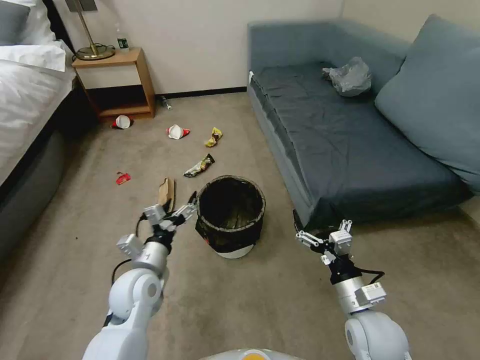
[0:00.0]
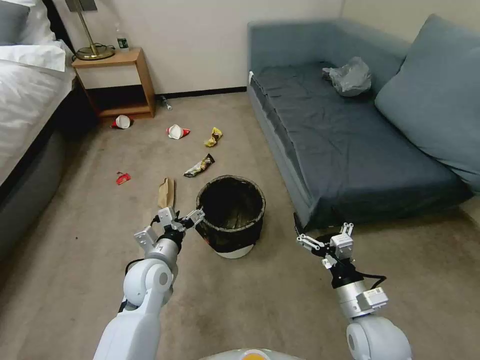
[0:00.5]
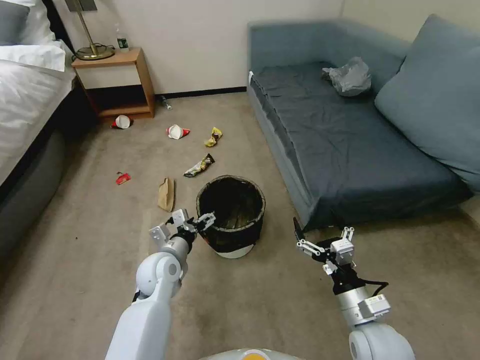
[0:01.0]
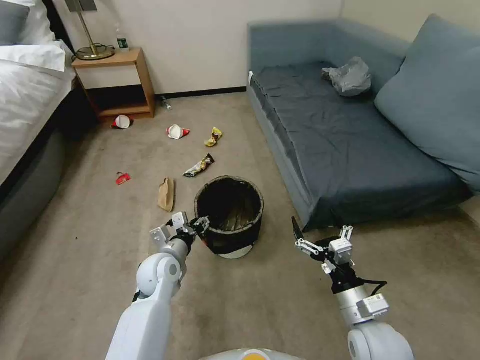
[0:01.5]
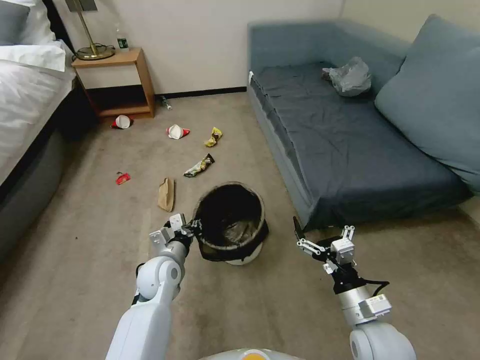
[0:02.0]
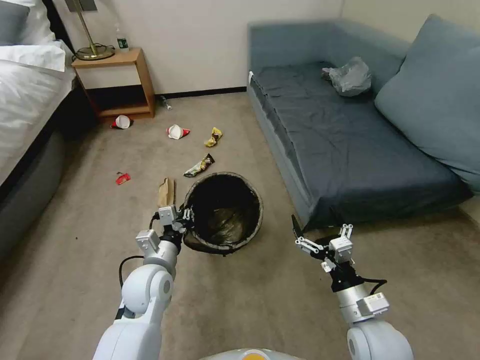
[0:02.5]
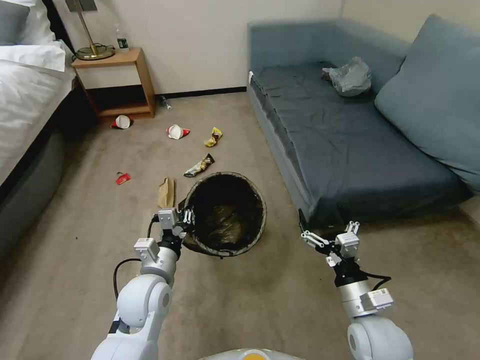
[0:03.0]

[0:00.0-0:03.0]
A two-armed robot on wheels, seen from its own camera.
Task of the whole recording: Pick up the trash can from the floor.
0:00.0 to 0:01.5: The left gripper heads forward, covering approximately 5 cm, and closes up.
0:01.5 to 0:03.0: The left gripper travels backward by about 5 cm, and closes its fingers.

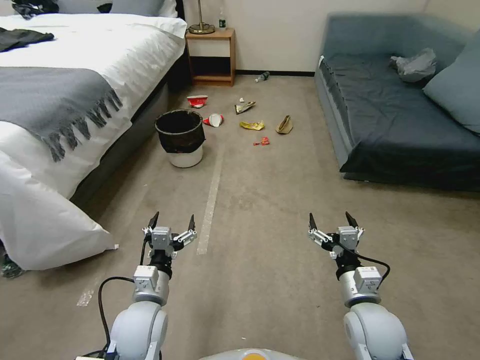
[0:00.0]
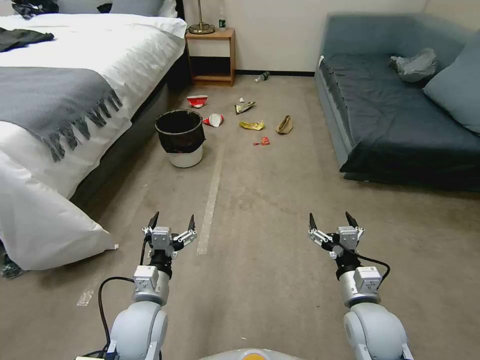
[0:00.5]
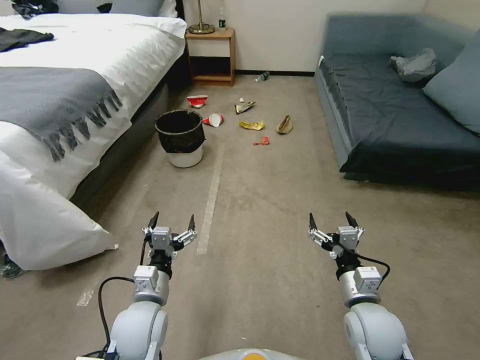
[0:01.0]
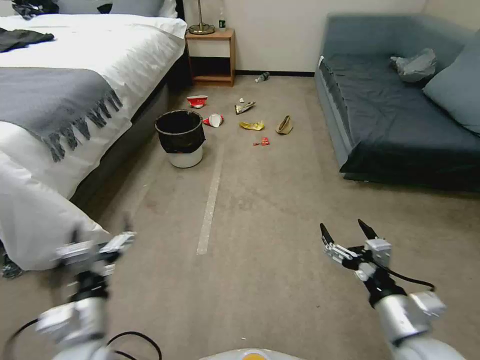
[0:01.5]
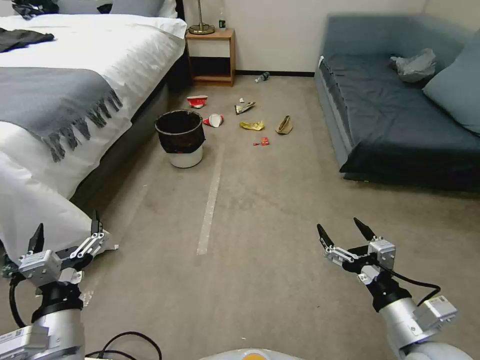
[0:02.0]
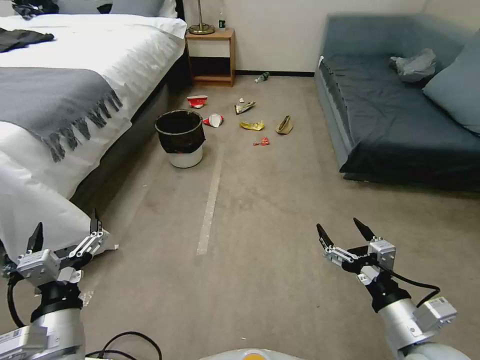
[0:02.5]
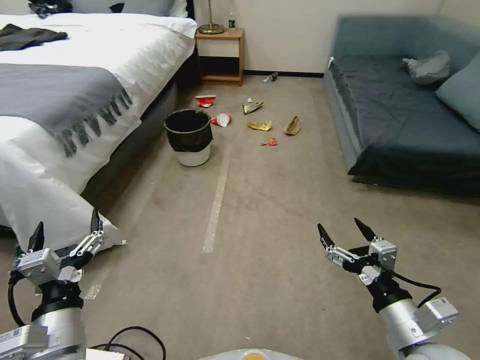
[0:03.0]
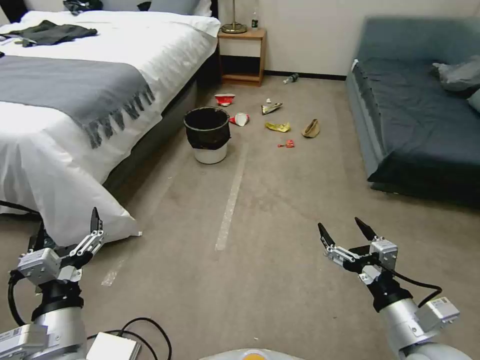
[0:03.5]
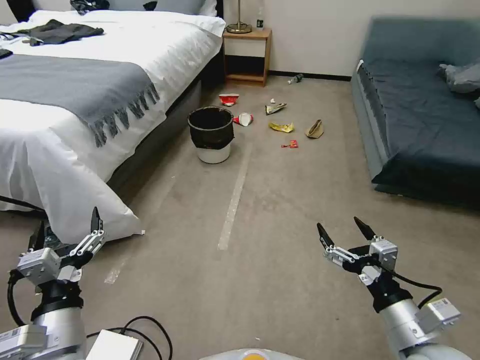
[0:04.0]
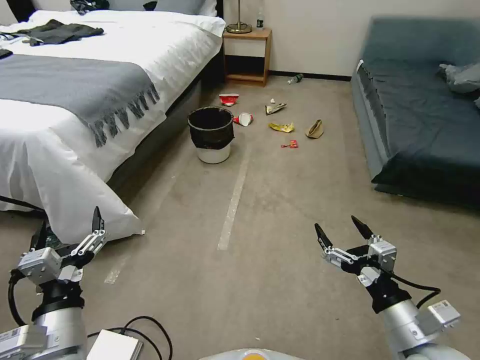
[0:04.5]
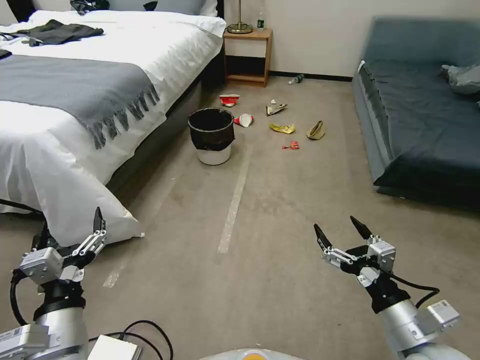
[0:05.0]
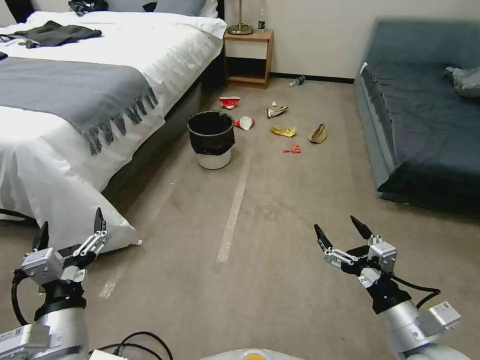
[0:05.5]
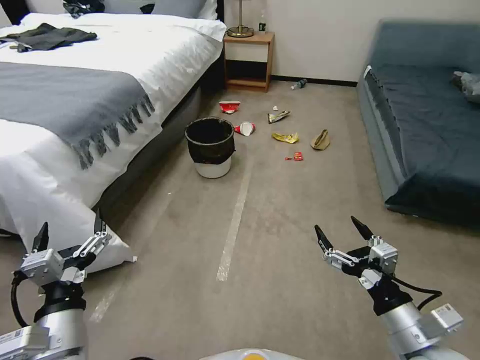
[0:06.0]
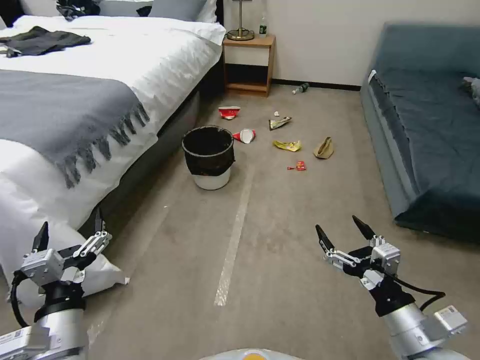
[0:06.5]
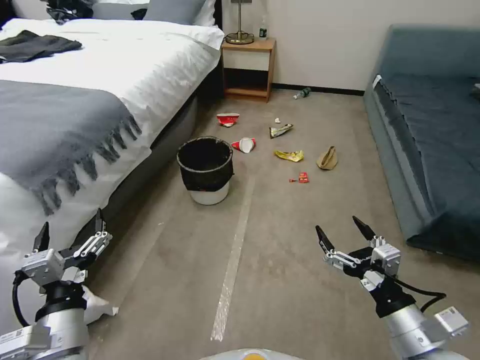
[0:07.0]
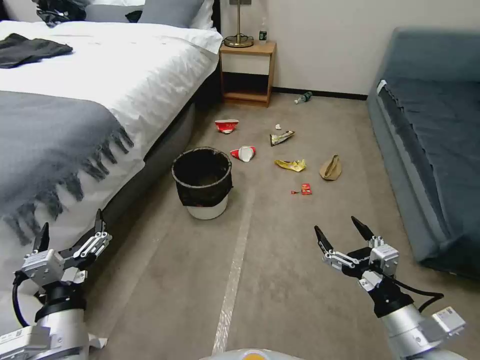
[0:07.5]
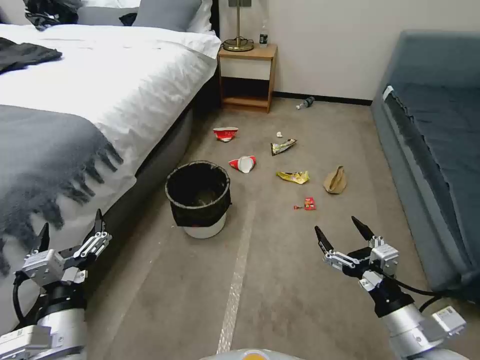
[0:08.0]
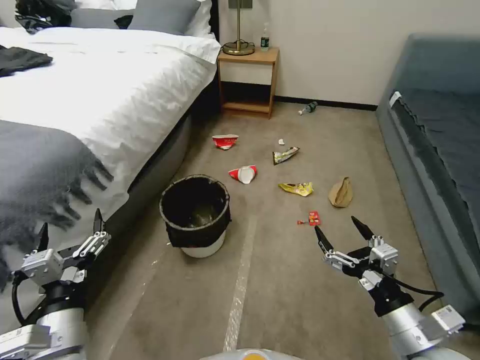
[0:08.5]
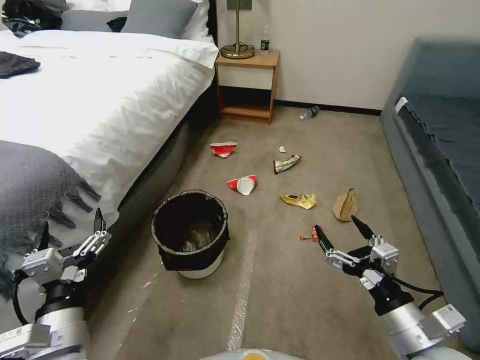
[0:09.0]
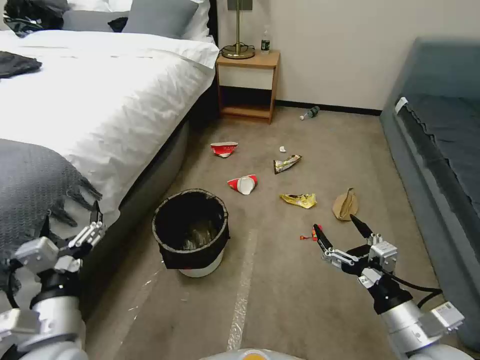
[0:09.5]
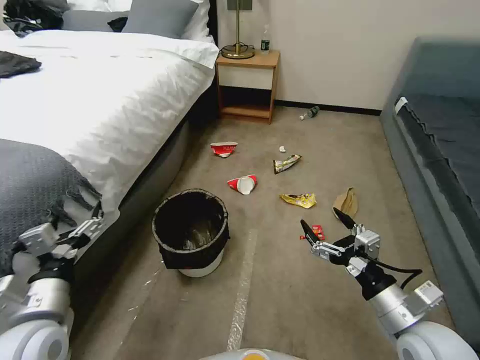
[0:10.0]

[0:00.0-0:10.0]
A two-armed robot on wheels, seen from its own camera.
Task of the whole recording: Pick up the trash can from the floor.
0:08.0 to 0:10.0: The left gripper shifts by some 5 cm.

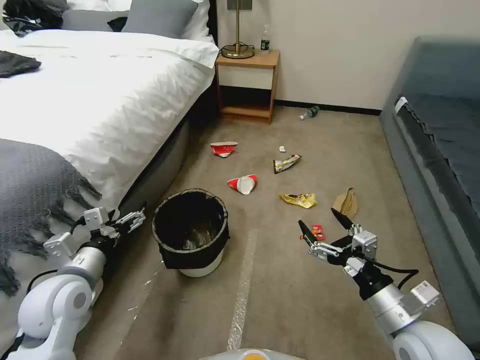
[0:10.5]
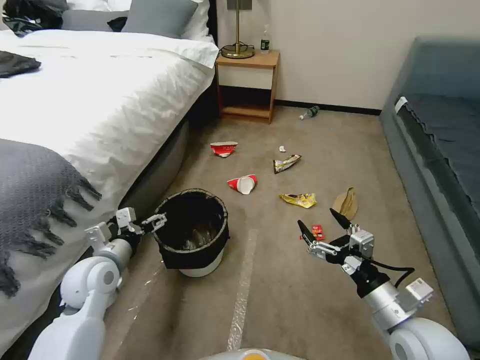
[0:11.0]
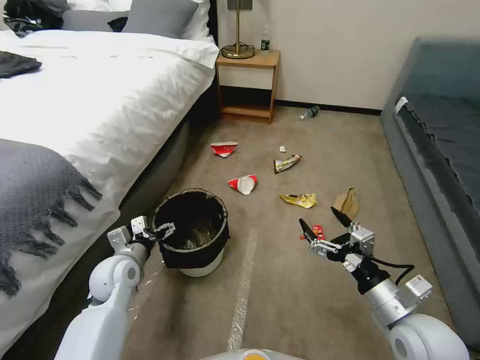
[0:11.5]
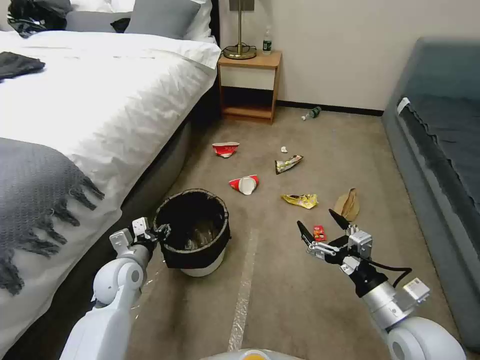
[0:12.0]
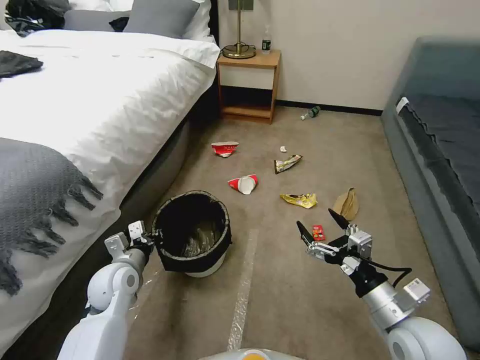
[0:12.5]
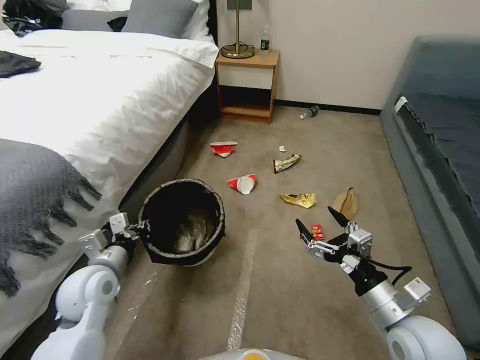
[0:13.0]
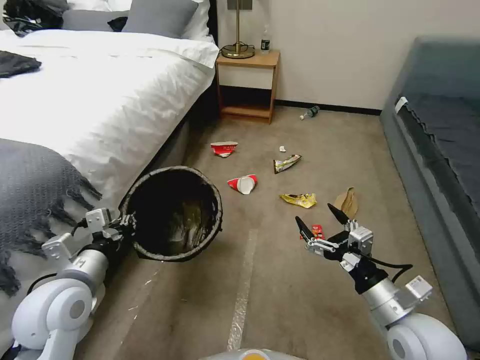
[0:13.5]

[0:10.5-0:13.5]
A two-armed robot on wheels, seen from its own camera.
Task of the whole recording: Pick up the trash can from the floor.
0:10.5 to 0:12.0: The left gripper goes approximately 15 cm downward and forward, and closes up.
0:12.0 to 0:13.5: The left gripper heads upward and backward, covering roughly 15 cm, and closes.
